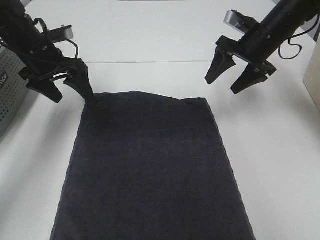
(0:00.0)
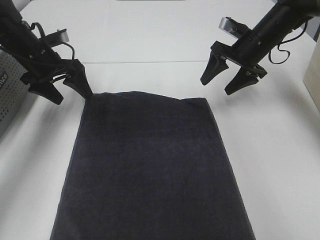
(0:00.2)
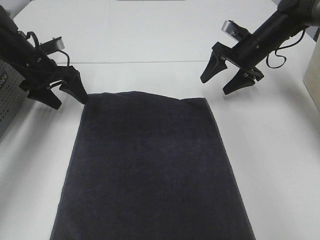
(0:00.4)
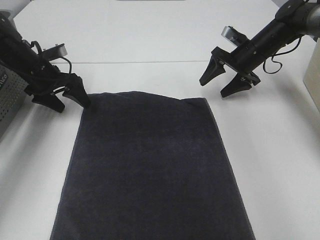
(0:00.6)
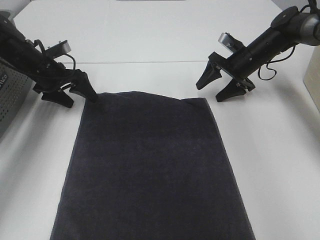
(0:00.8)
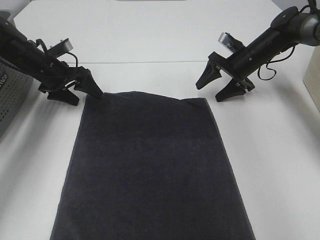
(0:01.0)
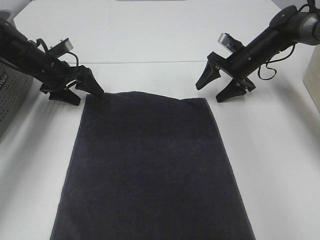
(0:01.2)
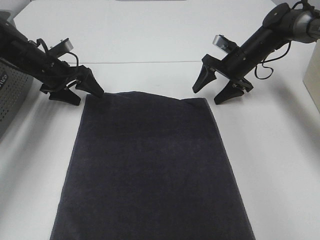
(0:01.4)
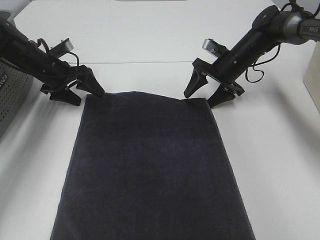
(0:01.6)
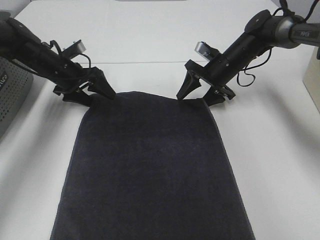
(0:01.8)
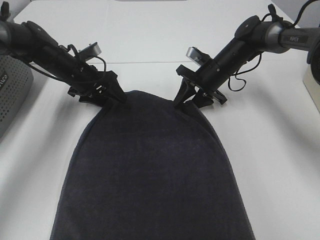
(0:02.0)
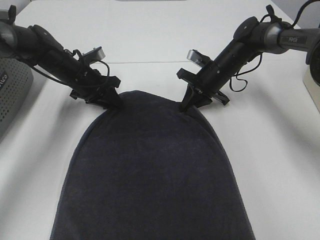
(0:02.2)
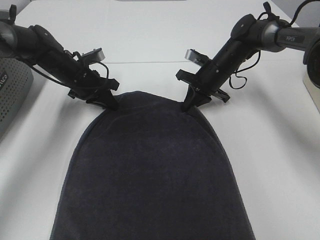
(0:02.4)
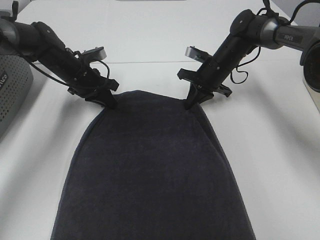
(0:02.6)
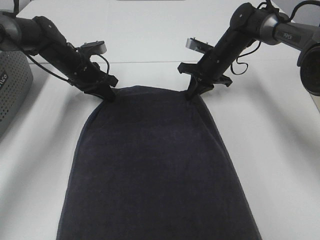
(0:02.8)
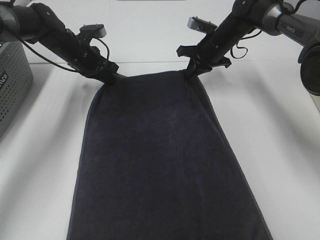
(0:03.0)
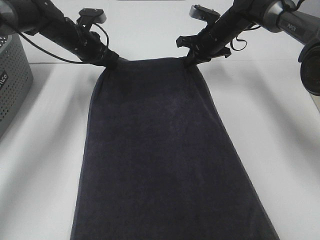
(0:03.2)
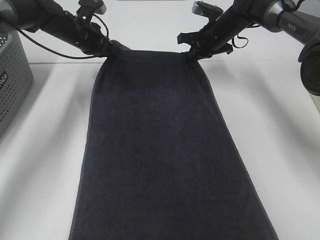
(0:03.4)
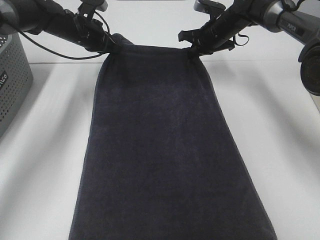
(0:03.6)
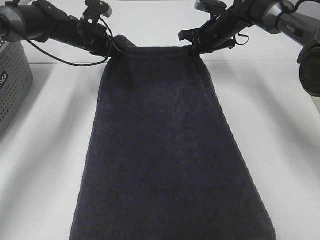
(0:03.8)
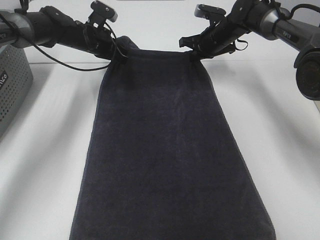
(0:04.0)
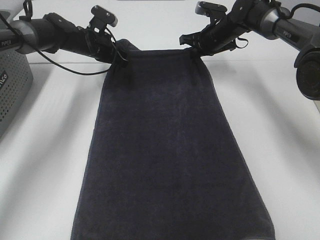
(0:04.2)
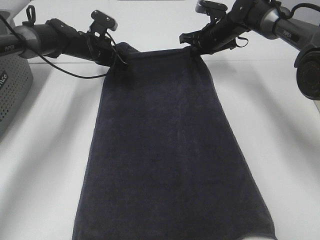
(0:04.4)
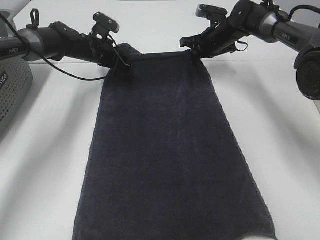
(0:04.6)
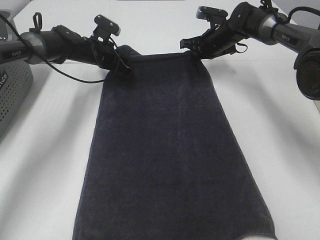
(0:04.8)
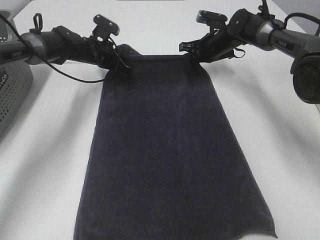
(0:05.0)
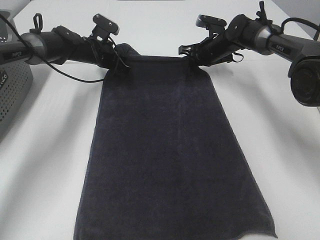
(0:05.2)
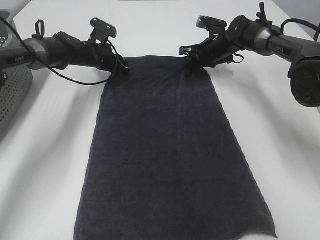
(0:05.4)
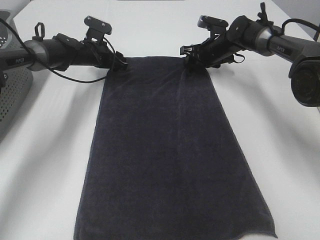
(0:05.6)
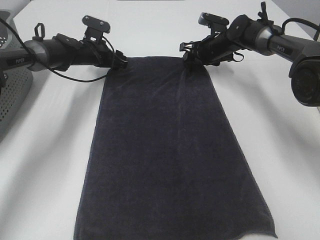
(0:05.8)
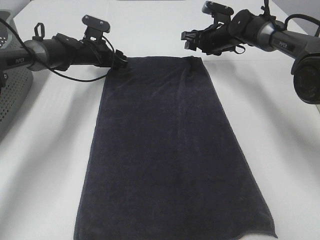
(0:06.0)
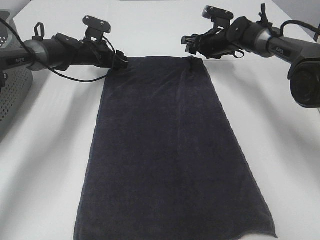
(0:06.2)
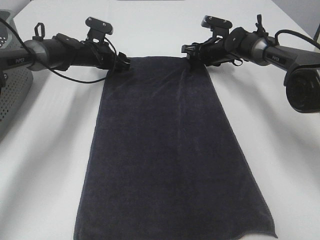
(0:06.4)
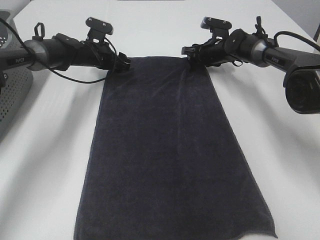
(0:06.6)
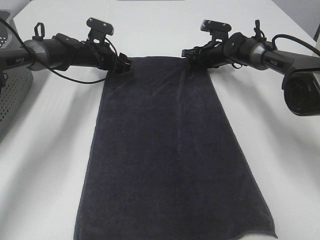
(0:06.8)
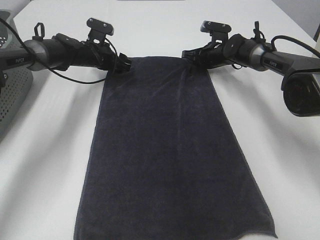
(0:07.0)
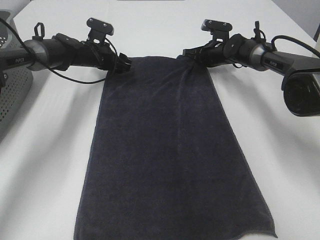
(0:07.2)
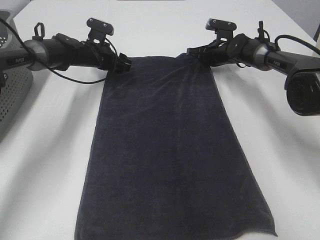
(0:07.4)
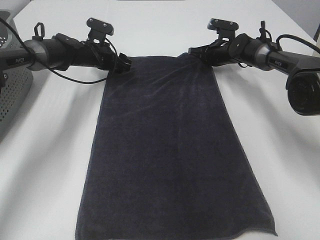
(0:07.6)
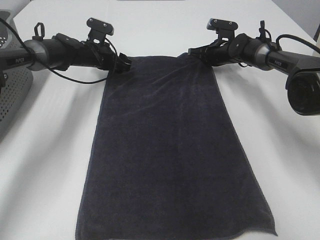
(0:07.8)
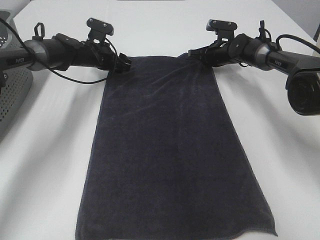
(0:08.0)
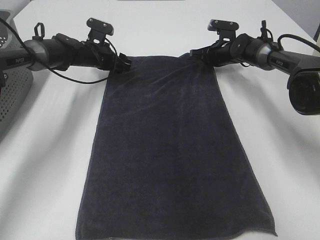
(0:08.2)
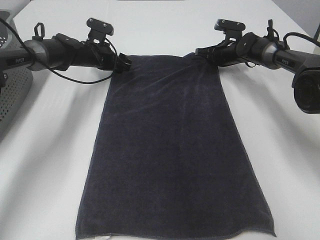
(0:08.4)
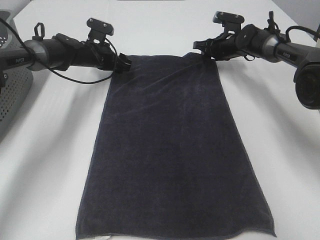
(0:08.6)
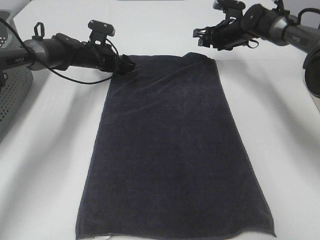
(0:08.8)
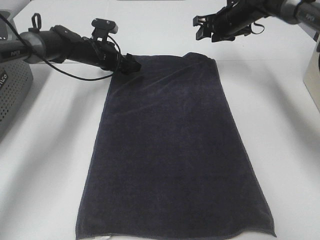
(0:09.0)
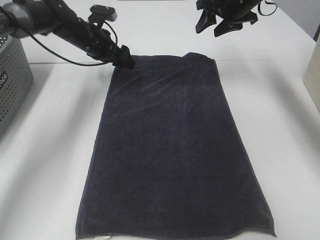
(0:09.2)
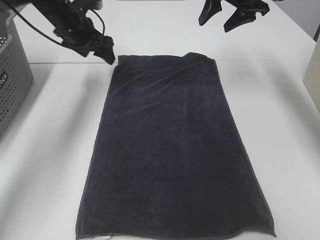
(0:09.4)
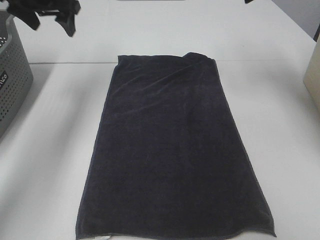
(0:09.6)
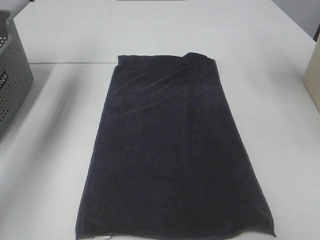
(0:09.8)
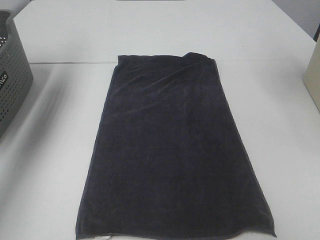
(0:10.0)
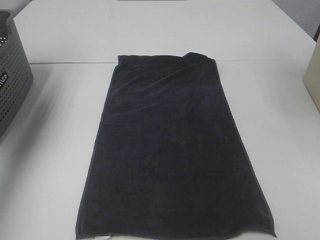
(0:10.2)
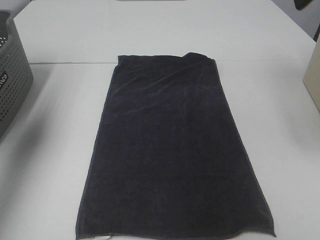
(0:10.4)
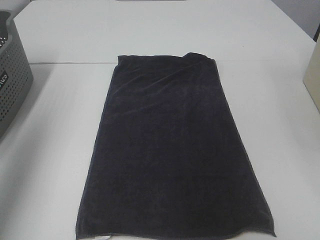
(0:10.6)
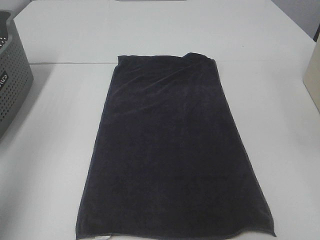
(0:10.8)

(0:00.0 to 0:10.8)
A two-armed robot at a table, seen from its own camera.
Task of the whole recording: Remove the towel and place it.
Step, 0:00.0 - 0:02.8: Left hand:adjust the gray towel.
Step, 0:00.0 - 0:02.8: Right hand:adjust the gray towel.
0:00.0 - 0:01.6: The grippers both shift downward by roughly 10 cm.
0:01.6 - 0:03.0: The right gripper moves approximately 5 cm, and closes up; the left gripper shifts approximately 5 cm to the right, and closes its fingers.
0:03.0 - 0:04.6: The left gripper changes place by roughly 5 cm.
0:04.6 - 0:06.2: The left gripper opens. Meanwhile the right gripper opens up.
0:06.2 - 0:07.8: The right gripper closes.
0:07.8 - 0:09.2: The left gripper moves upward, about 5 cm. The right gripper goes some 15 cm upward, and opens its fingers.
0:09.2 - 0:10.8: The right gripper shifts some 40 cm backward, while the left gripper shifts about 50 cm backward, upward and to the left.

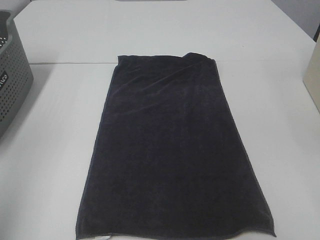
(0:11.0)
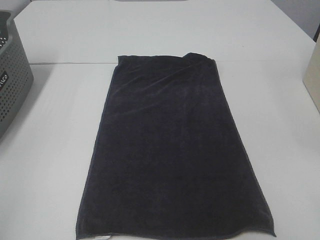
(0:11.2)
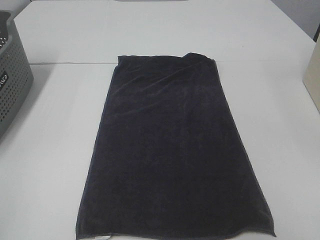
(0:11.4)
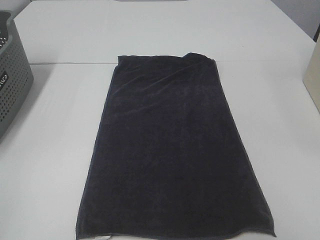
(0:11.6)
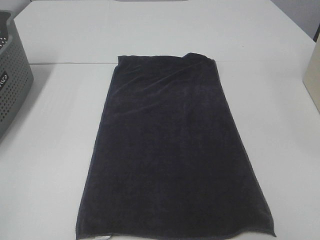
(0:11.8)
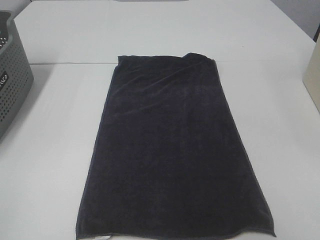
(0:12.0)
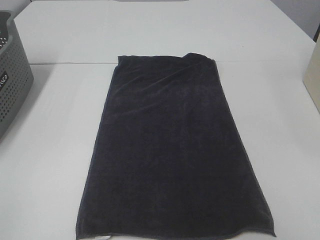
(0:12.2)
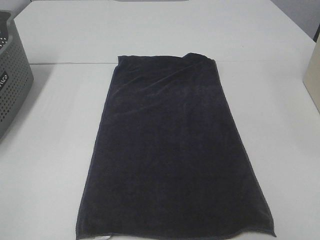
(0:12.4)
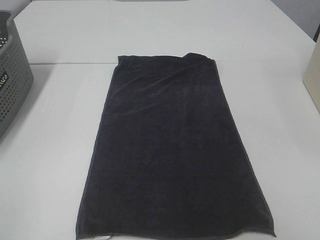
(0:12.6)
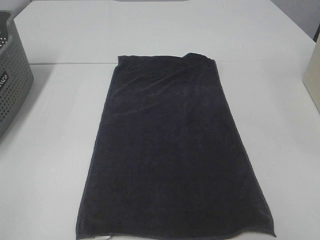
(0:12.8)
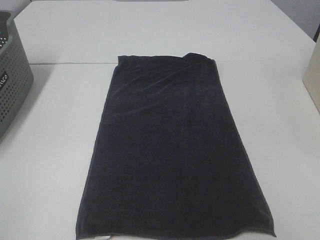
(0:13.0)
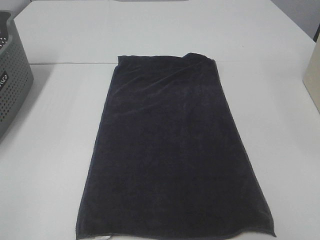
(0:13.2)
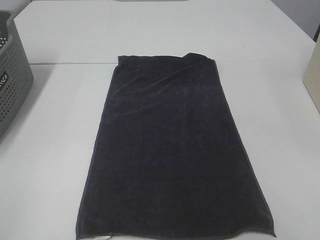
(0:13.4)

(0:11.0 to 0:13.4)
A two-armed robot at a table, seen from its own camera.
Task of the whole recording: Remove the towel and place it.
0:11.0 - 0:12.2: The left gripper goes roughly 15 cm backward and downward.

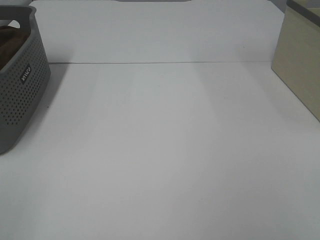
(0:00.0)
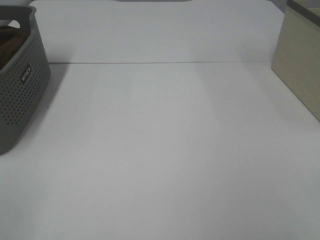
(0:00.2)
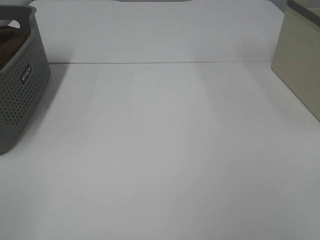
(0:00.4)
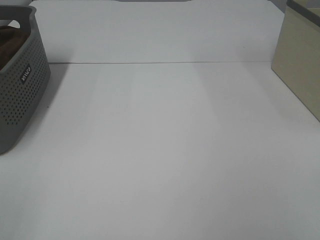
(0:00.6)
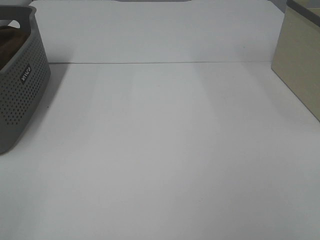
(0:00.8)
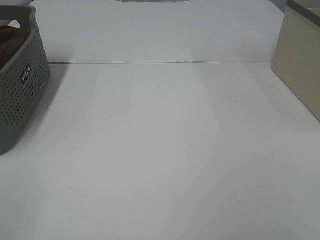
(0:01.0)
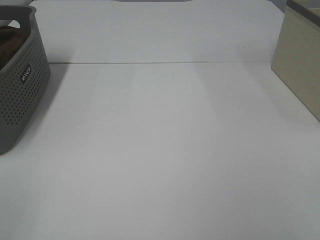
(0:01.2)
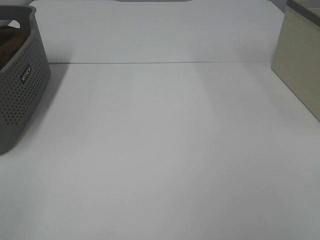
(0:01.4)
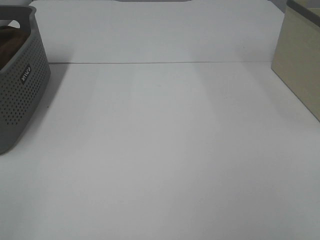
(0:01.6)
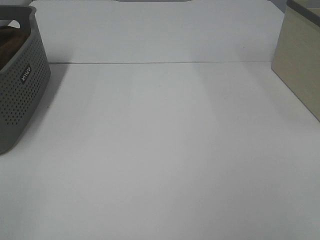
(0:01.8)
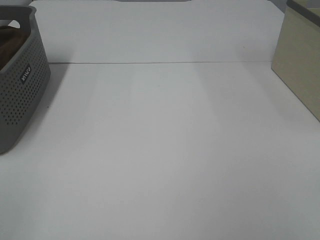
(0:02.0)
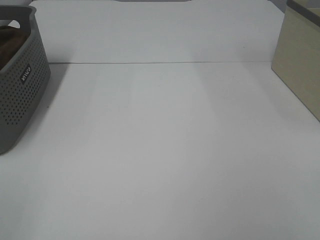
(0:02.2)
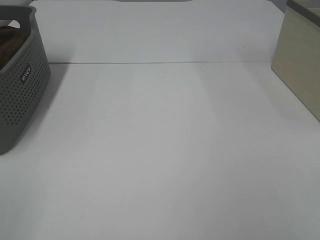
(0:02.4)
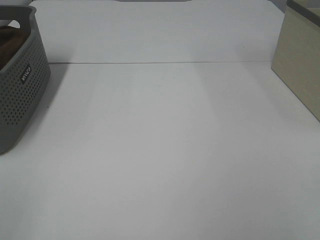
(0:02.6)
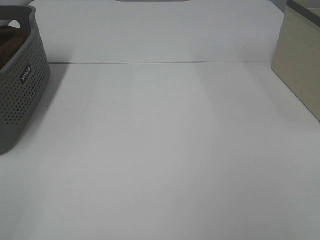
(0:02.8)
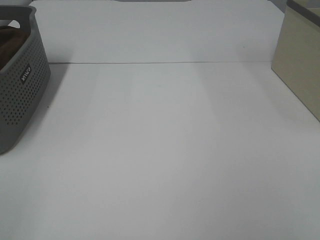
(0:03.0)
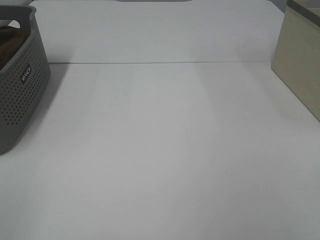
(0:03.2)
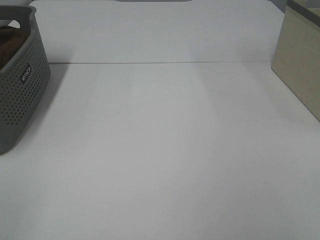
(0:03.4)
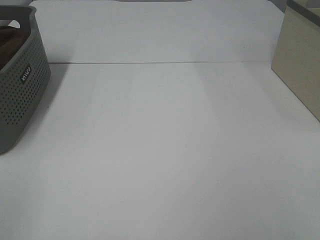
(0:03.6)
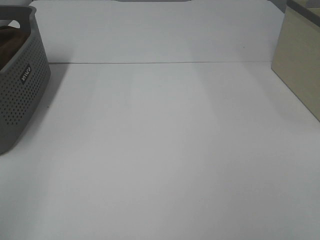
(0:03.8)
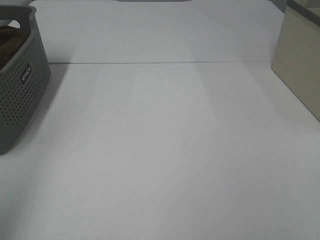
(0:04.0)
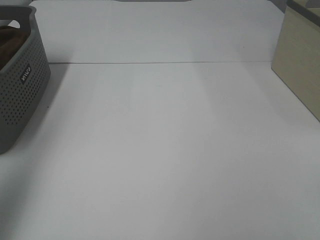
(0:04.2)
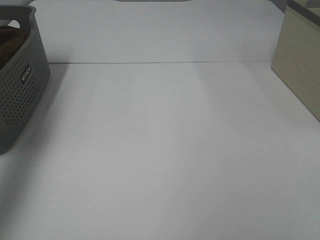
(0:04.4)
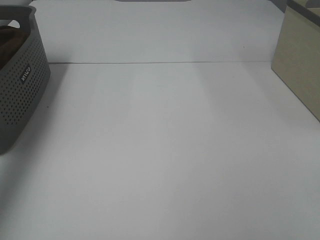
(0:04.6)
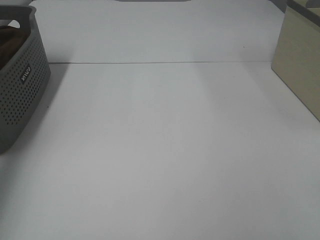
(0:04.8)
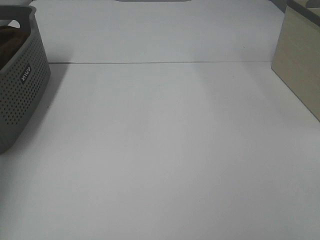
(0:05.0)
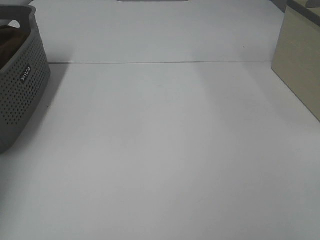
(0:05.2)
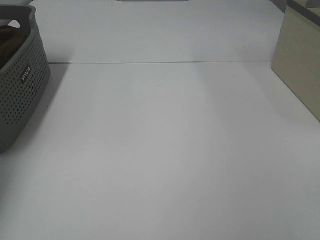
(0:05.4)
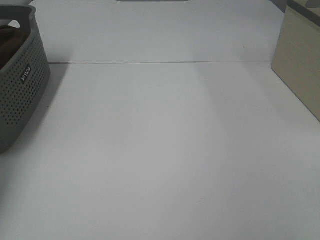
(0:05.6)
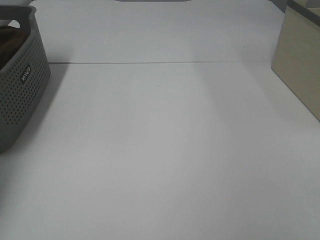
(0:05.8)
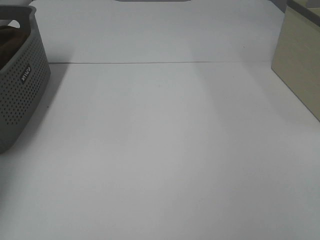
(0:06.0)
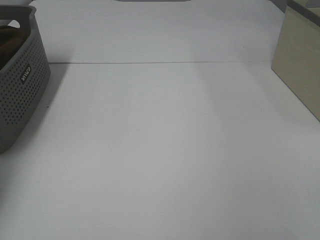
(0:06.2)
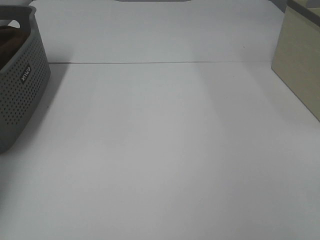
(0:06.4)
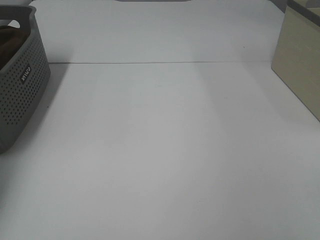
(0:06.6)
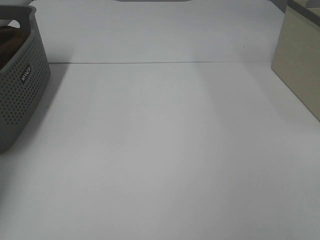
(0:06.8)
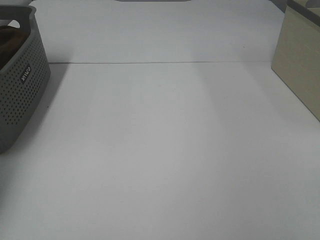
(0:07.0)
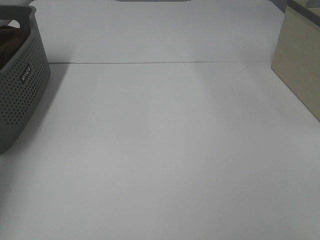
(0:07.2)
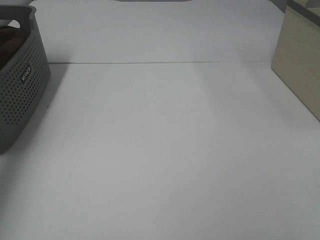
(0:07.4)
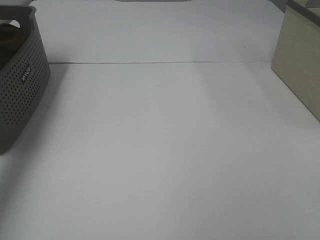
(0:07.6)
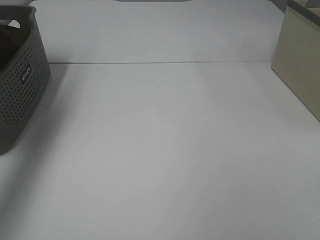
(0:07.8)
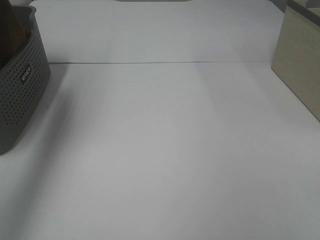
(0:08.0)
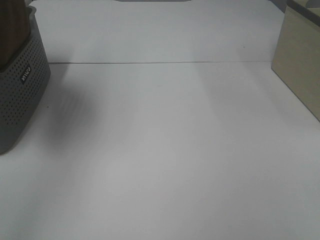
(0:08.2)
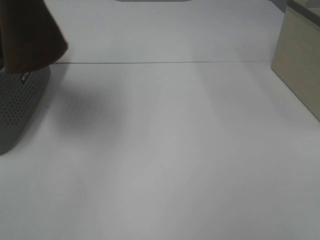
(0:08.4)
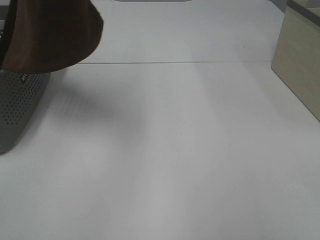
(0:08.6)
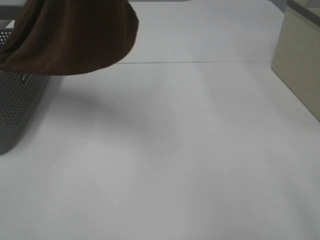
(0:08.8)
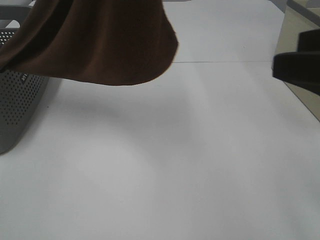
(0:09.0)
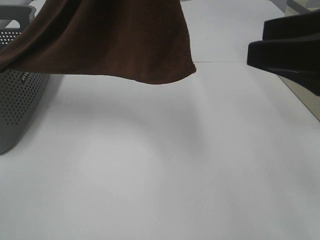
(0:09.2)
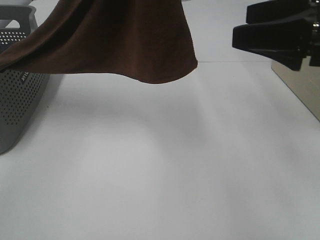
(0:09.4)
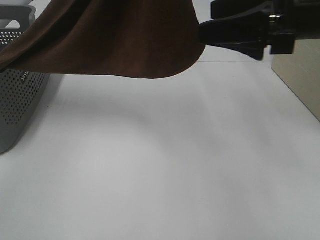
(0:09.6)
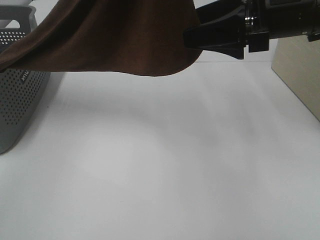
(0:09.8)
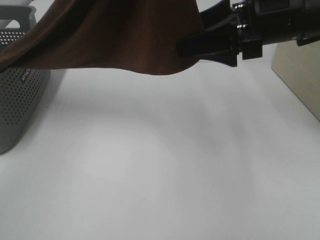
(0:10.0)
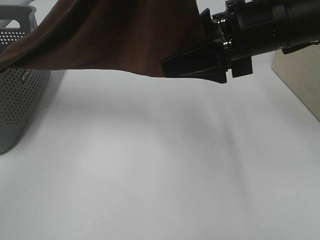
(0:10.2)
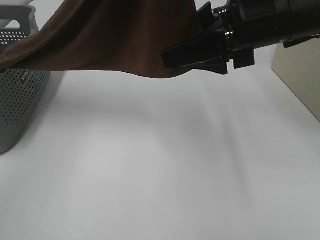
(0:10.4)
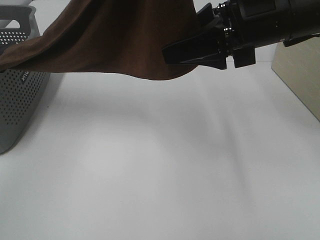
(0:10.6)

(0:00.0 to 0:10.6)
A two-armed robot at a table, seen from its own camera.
Task of the whole recording: Remove the towel and place it.
0:00.0 - 0:03.0: The two grippers keep their place.
0:03.0 - 0:04.6: The left gripper is displaced forward by approximately 35 cm.
0:04.6 - 0:06.0: The left gripper is displaced downward and forward by approximately 20 cm, and closes.
0:06.0 - 0:07.6: The left gripper moves upward and backward, some 20 cm, and closes its fingers.
0:07.6 - 0:09.0: The right gripper travels forward by roughly 15 cm, while the left gripper shifts some 35 cm to the right, backward and upward.
0:09.0 - 0:10.6: The right gripper goes approximately 15 cm forward and to the left.
